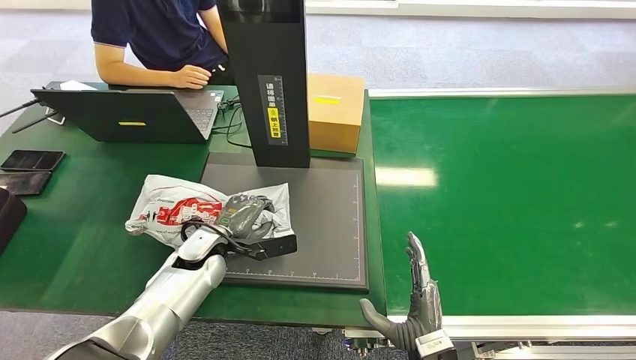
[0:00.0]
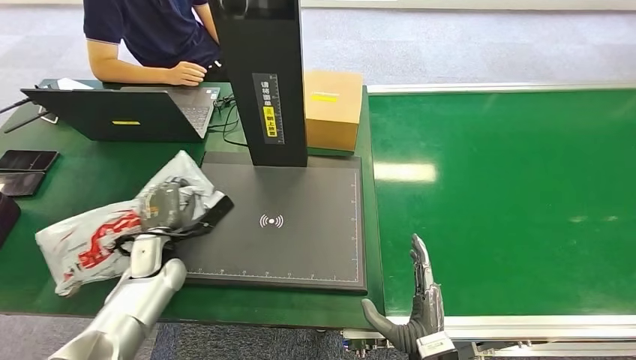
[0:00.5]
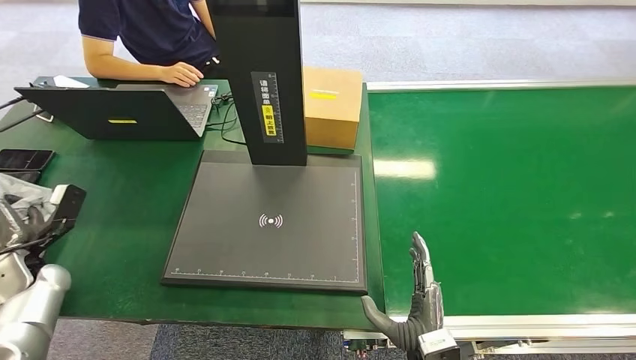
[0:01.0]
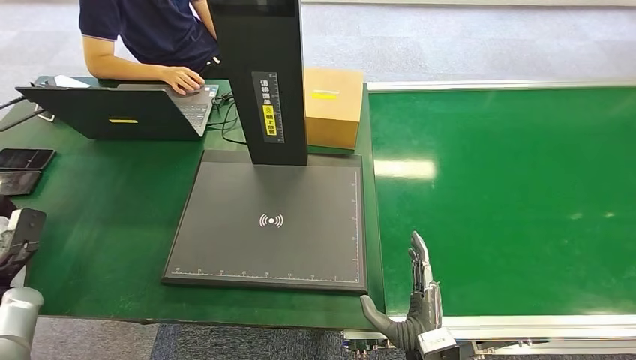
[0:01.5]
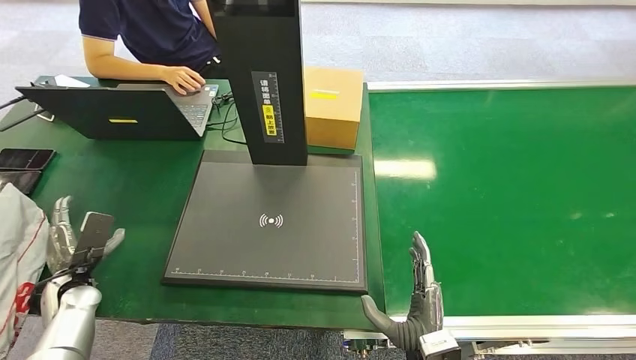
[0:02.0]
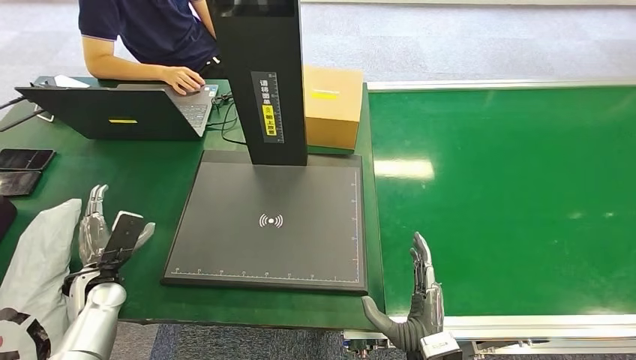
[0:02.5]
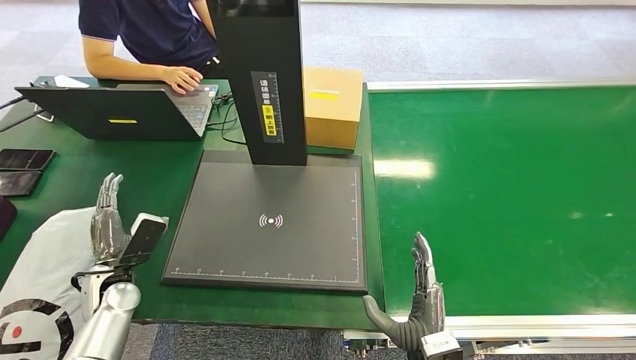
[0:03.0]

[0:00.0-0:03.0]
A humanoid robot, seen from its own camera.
Step, 0:00.0 to 0:03.0: Place the package into the parcel locker.
0:01.5 to 0:03.0: The left hand travels to the right by roughly 20 cm.

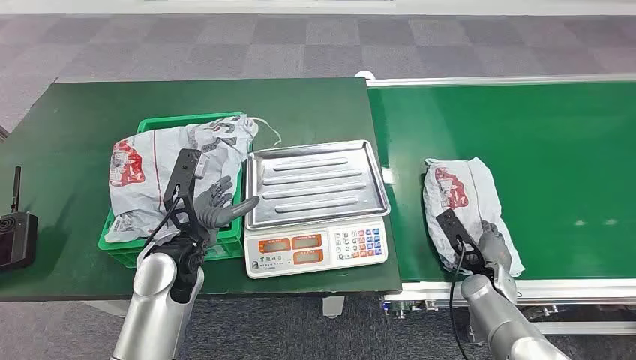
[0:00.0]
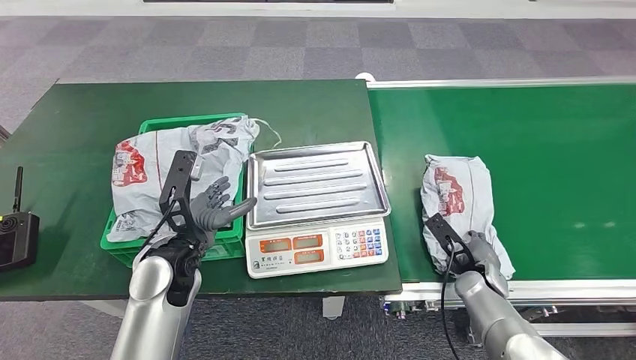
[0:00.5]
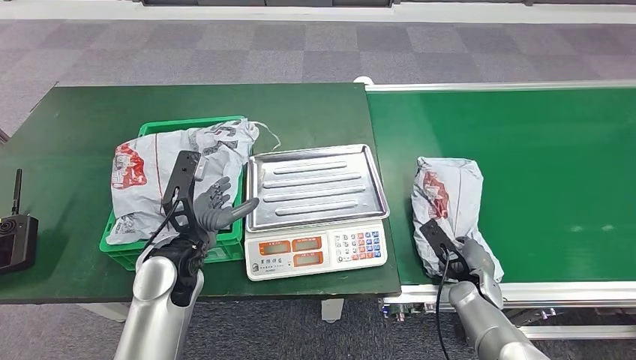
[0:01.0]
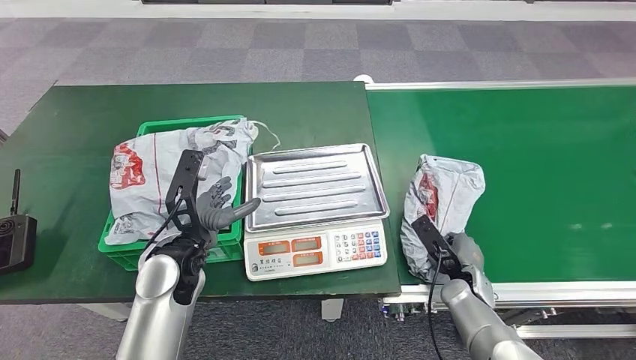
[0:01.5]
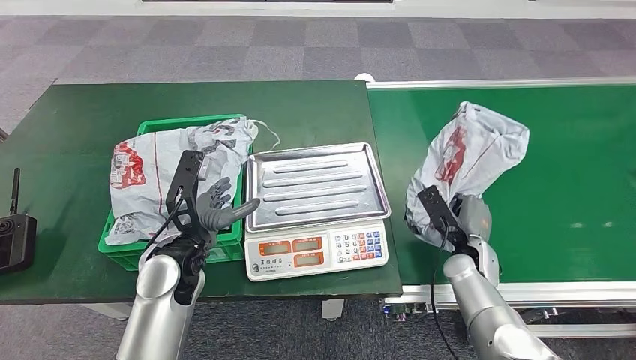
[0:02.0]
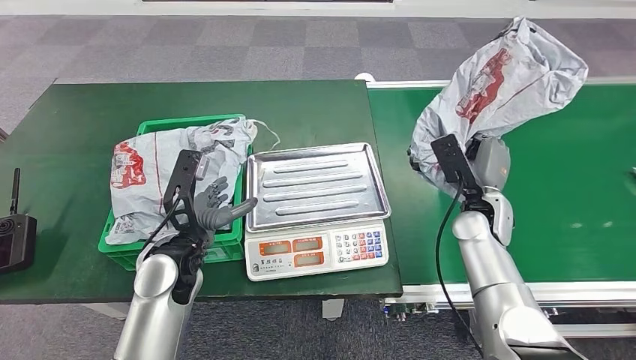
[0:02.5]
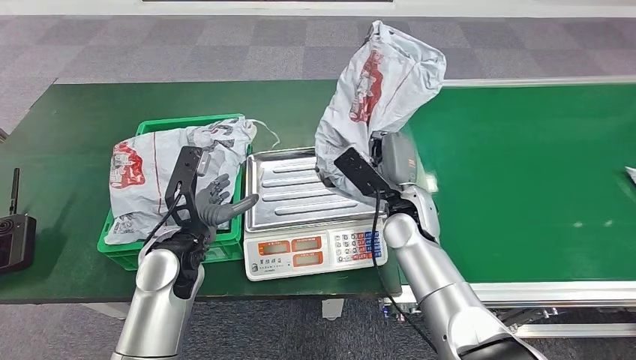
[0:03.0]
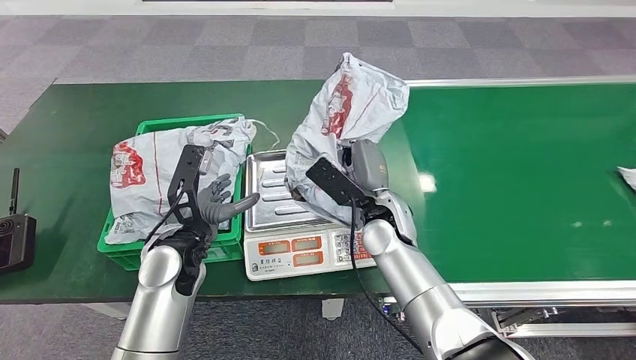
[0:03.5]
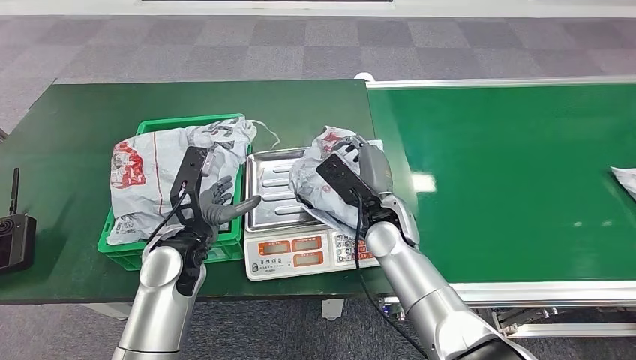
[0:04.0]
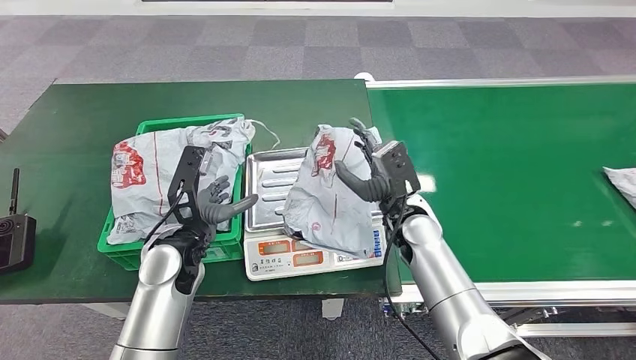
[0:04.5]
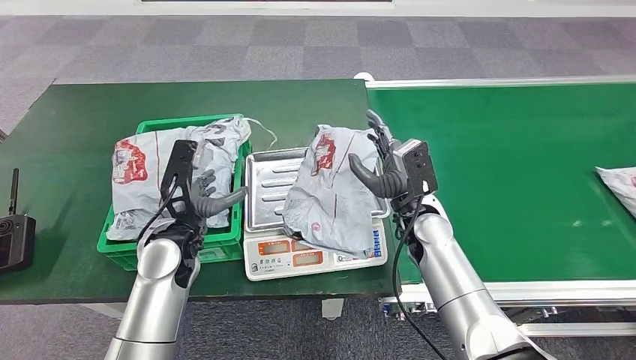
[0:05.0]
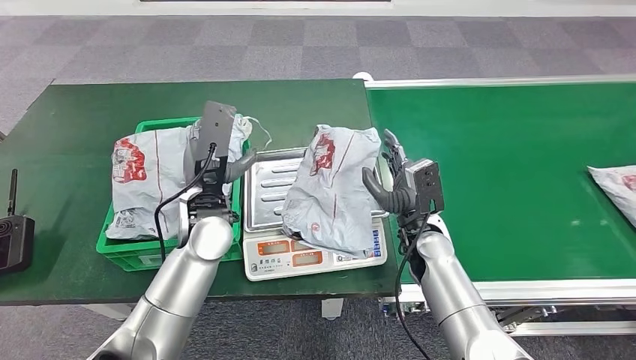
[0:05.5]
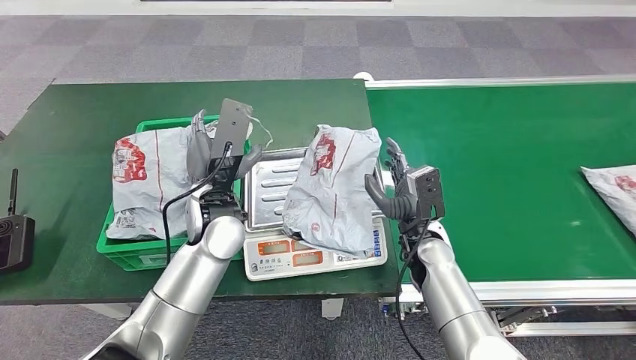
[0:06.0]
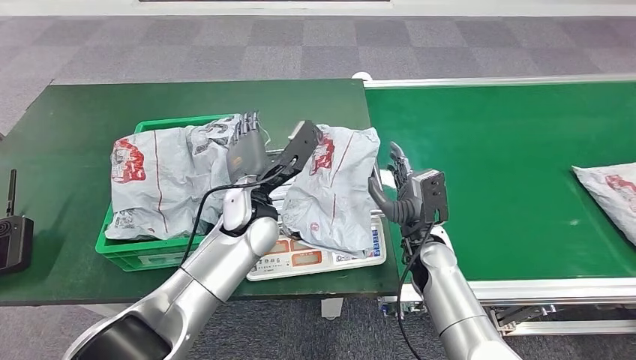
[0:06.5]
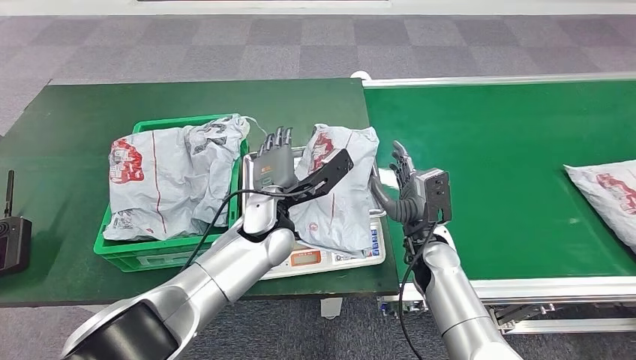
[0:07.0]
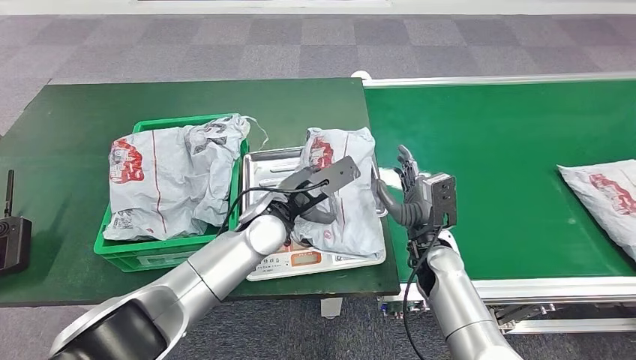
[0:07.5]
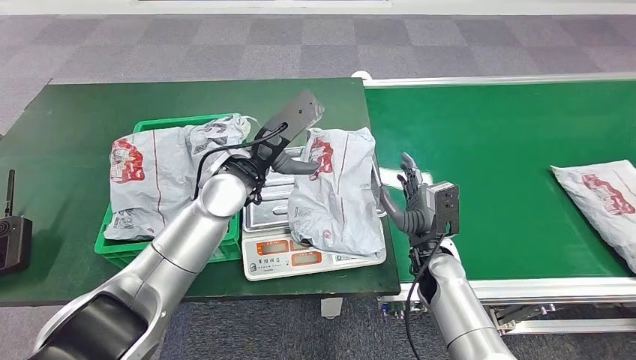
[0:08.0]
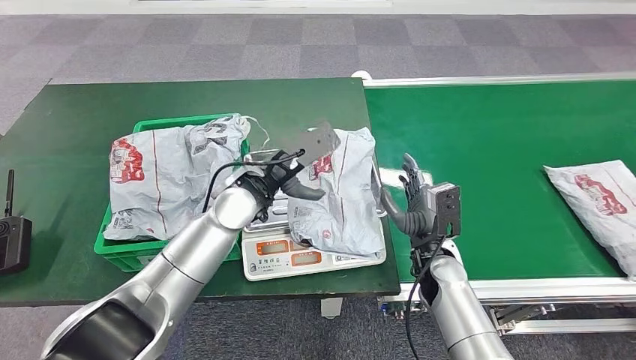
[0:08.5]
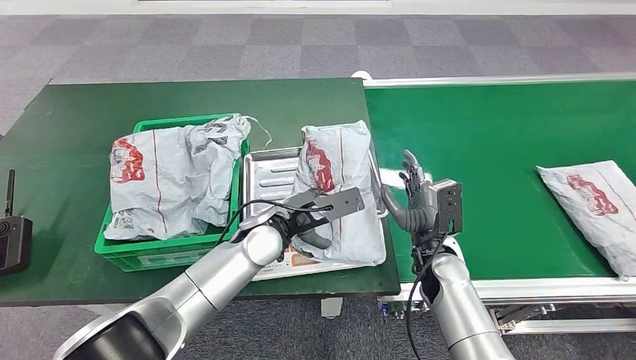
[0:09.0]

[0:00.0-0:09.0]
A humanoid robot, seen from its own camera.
Step, 0:00.0 to 0:02.0: Pick up the package from the conveyor belt.
Step, 0:02.5 to 0:05.0: Place the package onto the inbound machine.
0:07.0 to 0:09.0: The left hand travels upward and back again, some 10 cm each way.

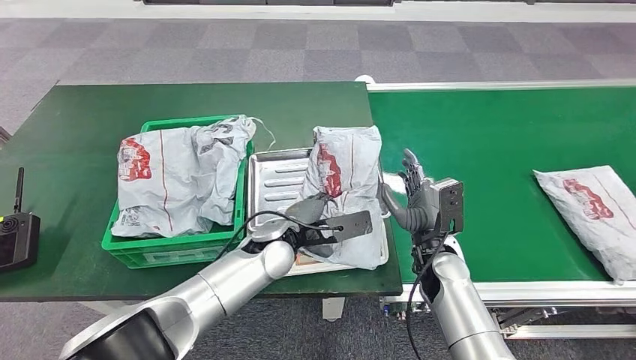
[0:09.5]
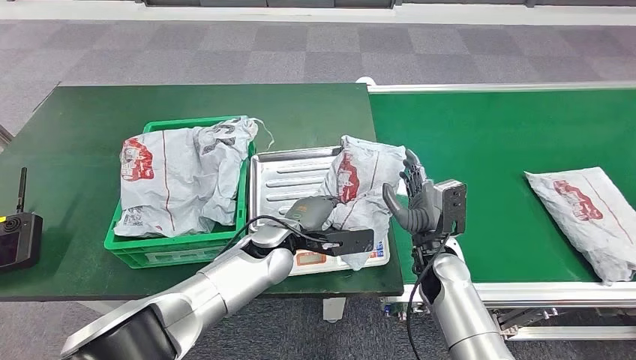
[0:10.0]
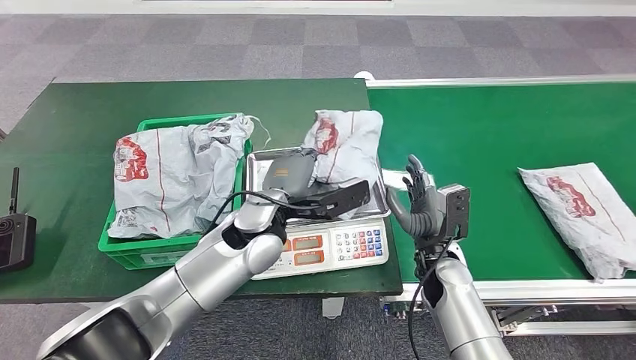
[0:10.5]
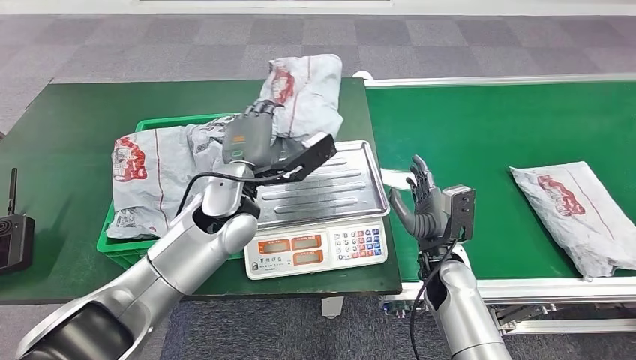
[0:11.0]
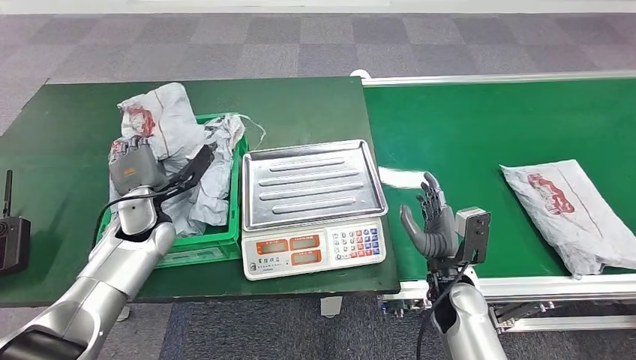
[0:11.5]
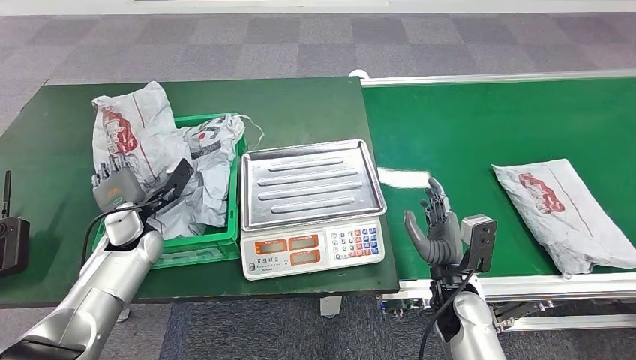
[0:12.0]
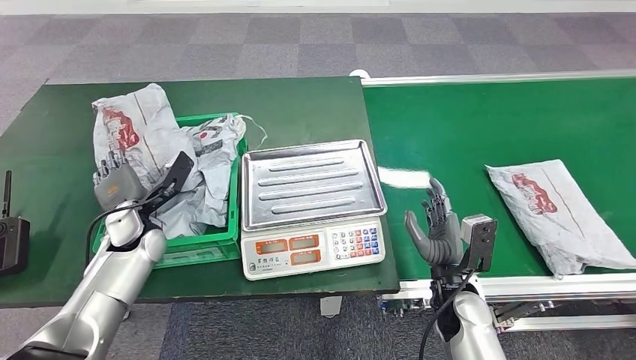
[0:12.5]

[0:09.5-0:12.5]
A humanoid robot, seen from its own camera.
Step, 0:09.5 to 0:10.5: Pick up the package from the inbound machine.
Step, 0:12.0 to 0:12.5: Place the package into the parcel locker.

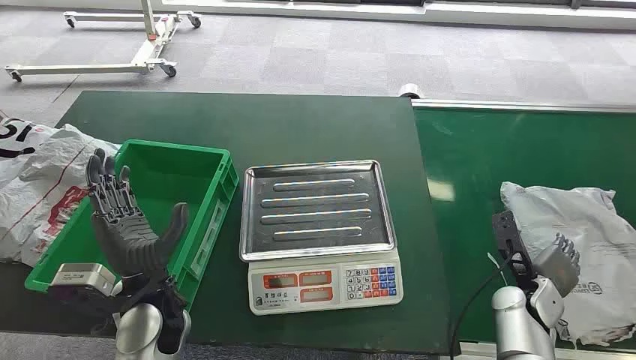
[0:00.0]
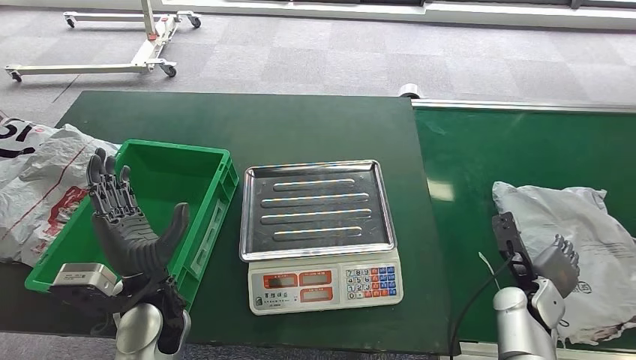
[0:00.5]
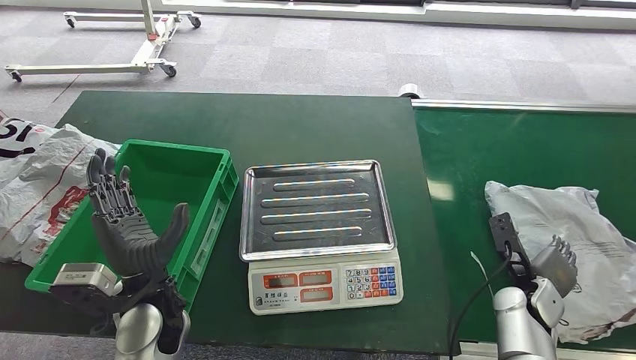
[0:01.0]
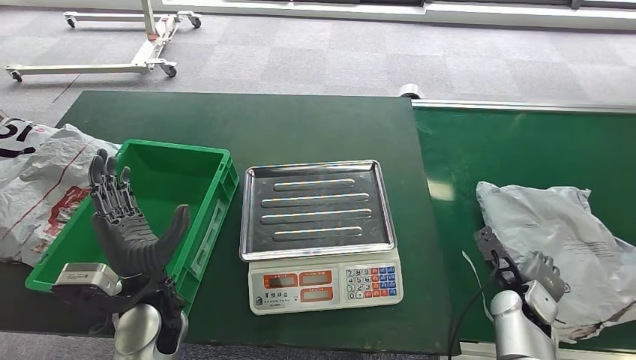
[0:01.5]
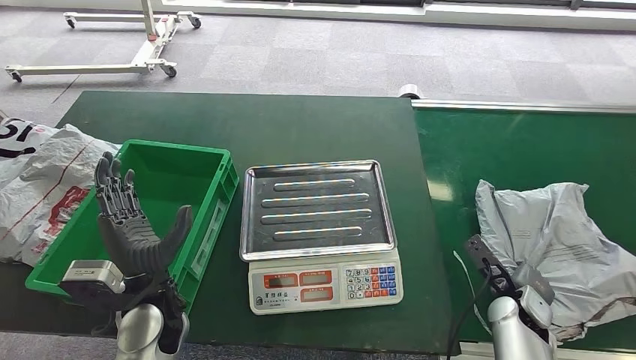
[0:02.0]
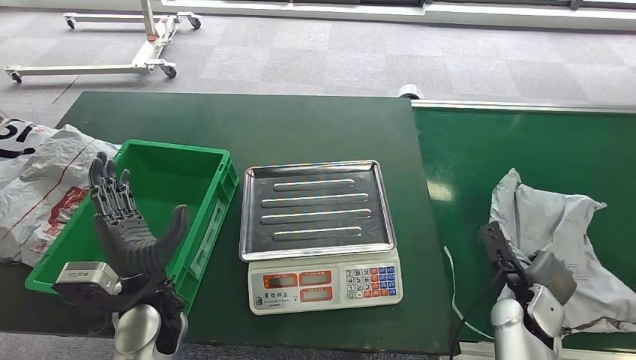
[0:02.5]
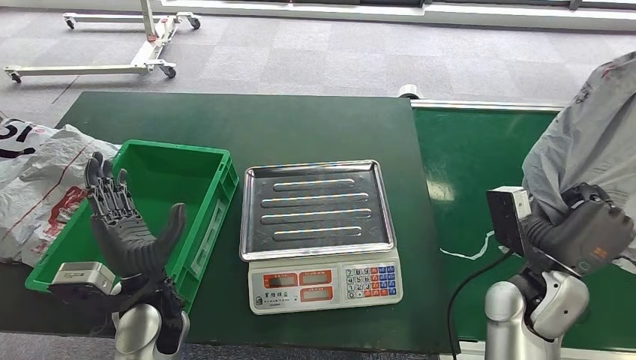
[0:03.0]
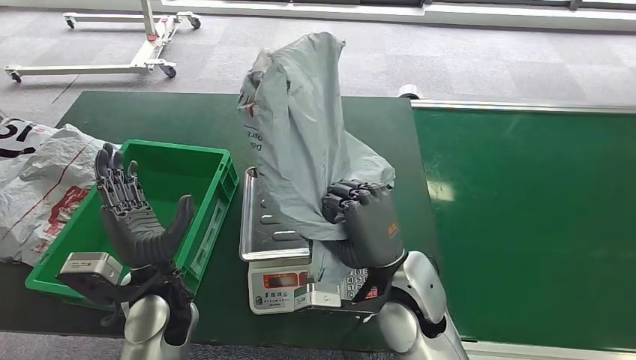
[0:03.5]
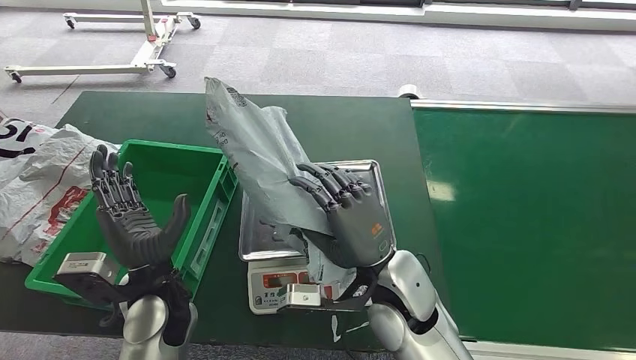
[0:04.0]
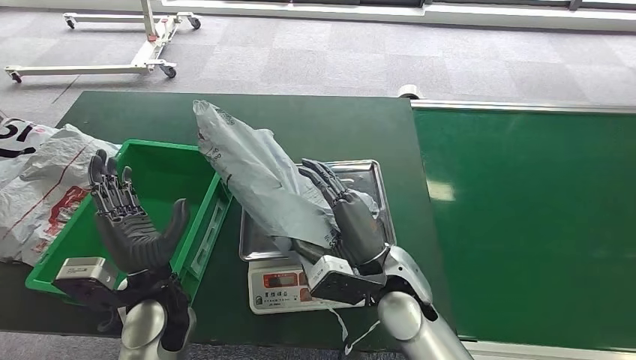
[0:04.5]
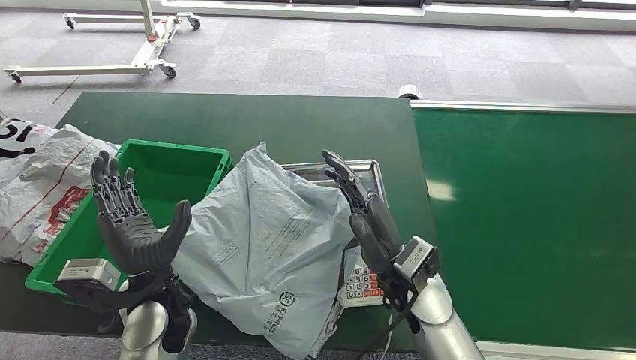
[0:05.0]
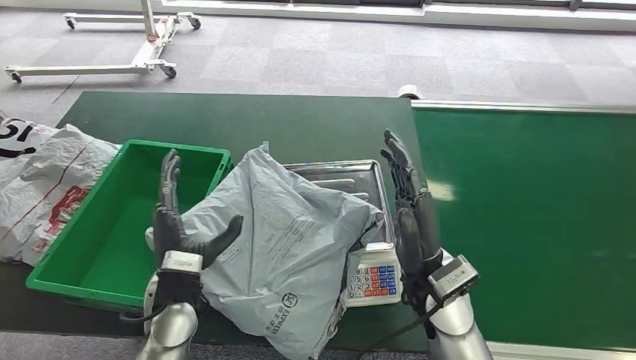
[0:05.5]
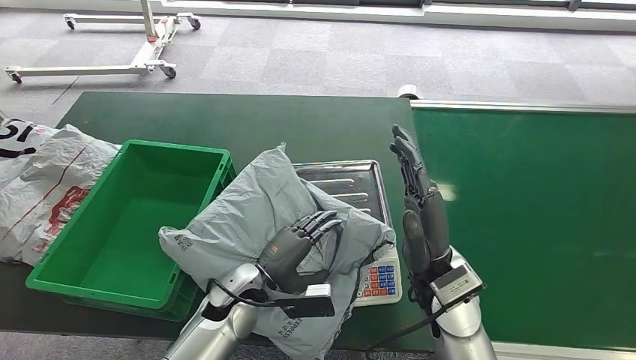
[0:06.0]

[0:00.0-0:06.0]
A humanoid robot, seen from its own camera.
Step, 0:00.0 to 0:02.5: Pick up the package from the conveyor belt.
Step, 0:03.0 to 0:05.5: Place the package onto the inbound machine.
